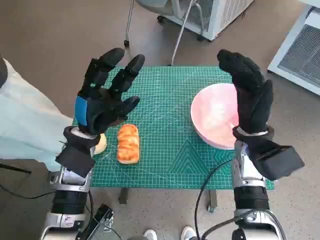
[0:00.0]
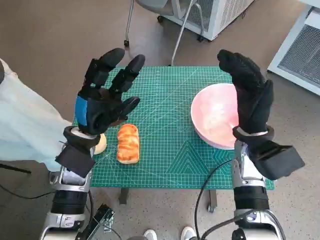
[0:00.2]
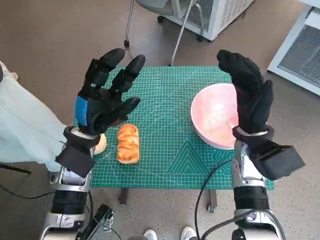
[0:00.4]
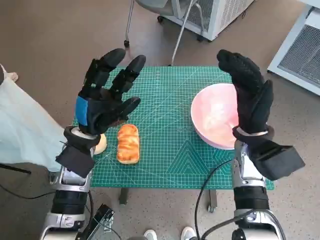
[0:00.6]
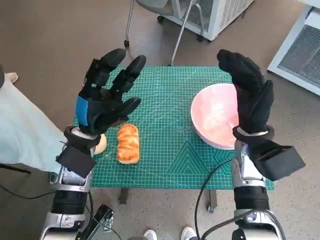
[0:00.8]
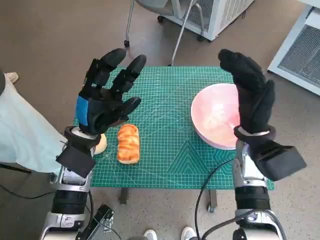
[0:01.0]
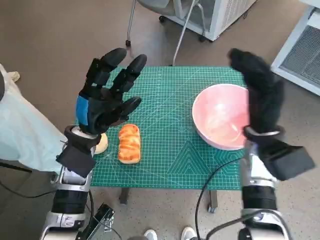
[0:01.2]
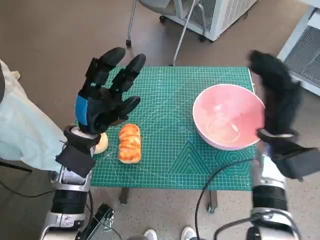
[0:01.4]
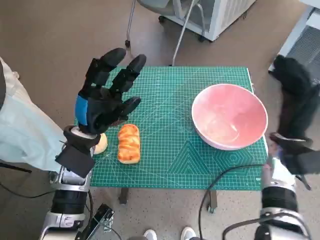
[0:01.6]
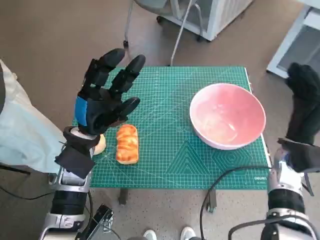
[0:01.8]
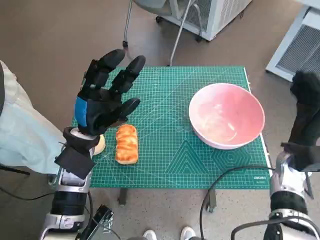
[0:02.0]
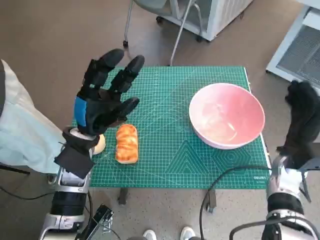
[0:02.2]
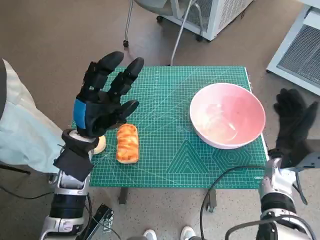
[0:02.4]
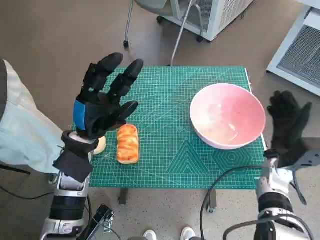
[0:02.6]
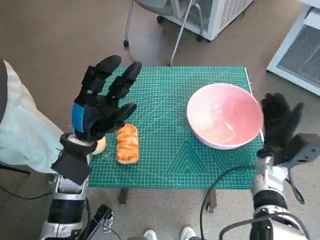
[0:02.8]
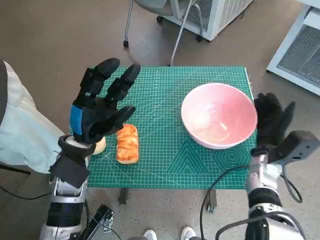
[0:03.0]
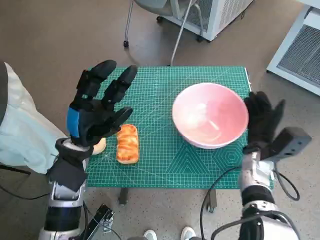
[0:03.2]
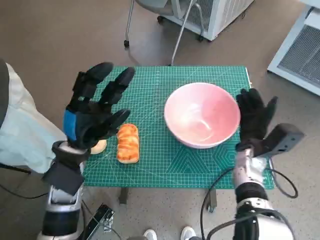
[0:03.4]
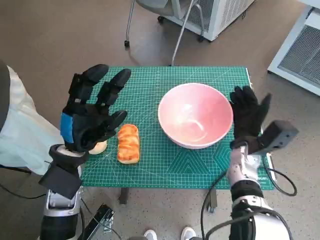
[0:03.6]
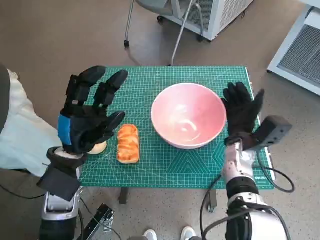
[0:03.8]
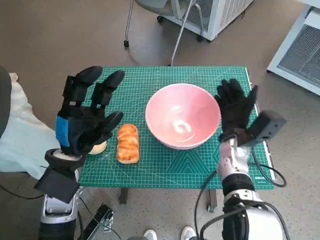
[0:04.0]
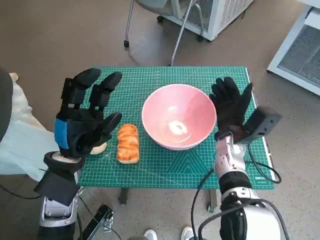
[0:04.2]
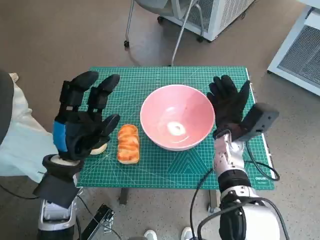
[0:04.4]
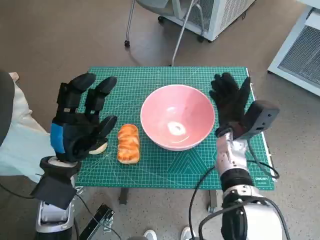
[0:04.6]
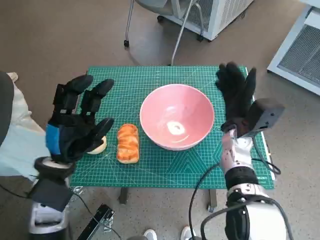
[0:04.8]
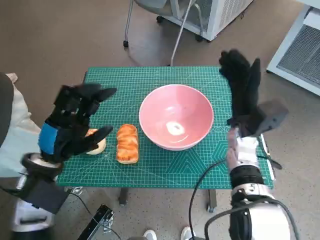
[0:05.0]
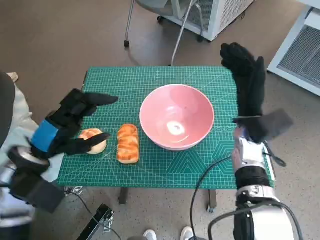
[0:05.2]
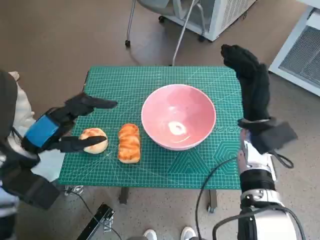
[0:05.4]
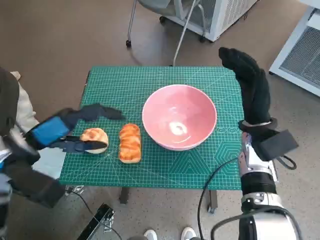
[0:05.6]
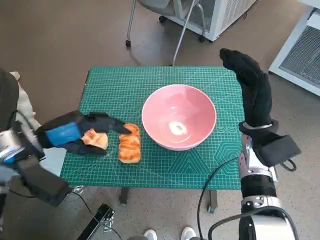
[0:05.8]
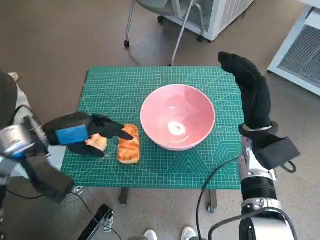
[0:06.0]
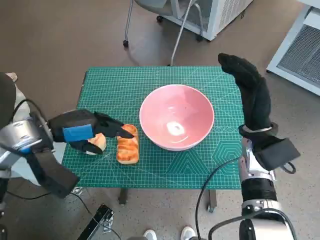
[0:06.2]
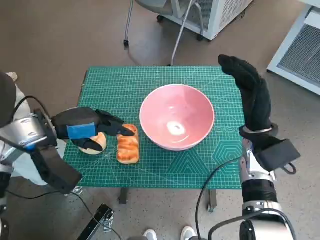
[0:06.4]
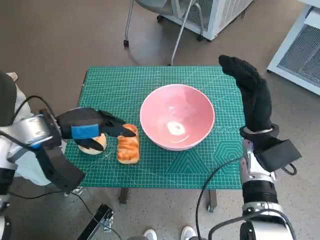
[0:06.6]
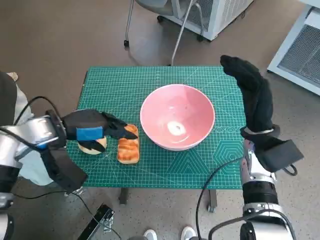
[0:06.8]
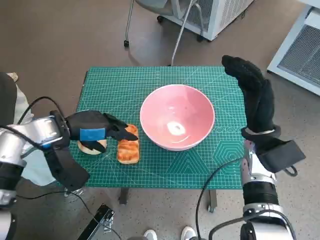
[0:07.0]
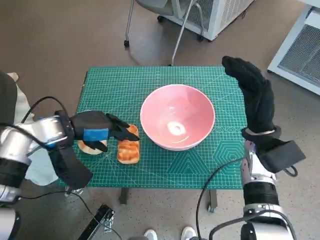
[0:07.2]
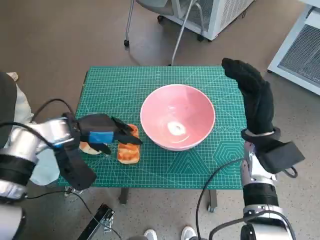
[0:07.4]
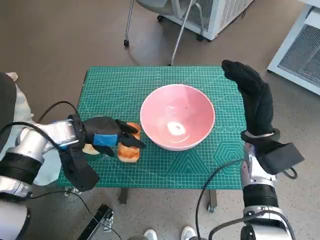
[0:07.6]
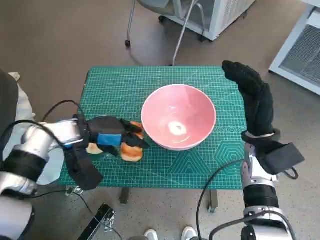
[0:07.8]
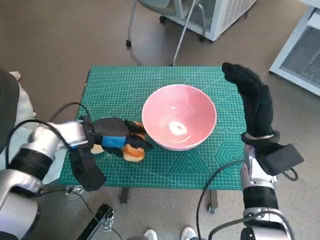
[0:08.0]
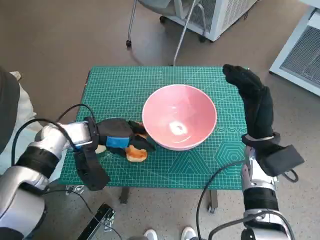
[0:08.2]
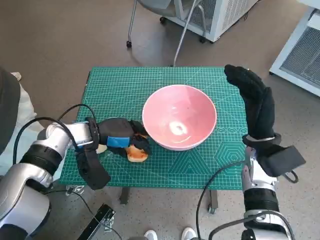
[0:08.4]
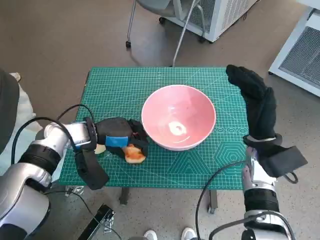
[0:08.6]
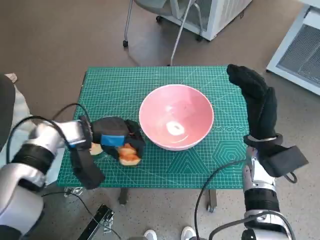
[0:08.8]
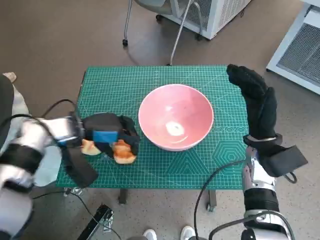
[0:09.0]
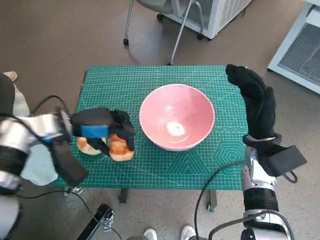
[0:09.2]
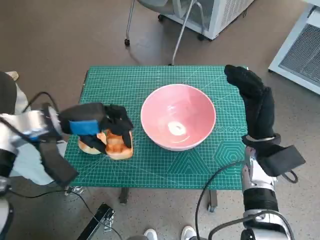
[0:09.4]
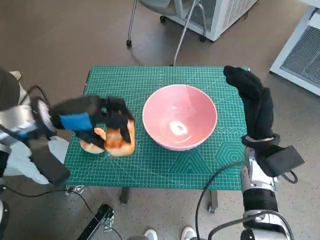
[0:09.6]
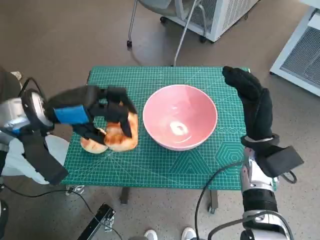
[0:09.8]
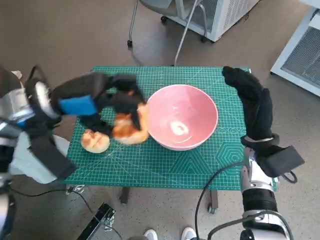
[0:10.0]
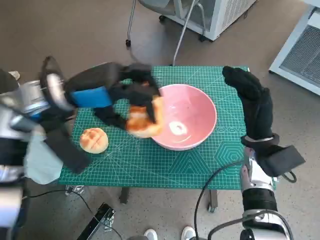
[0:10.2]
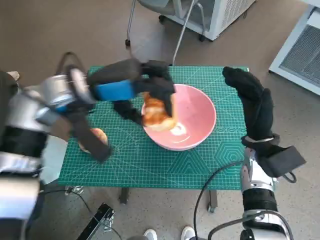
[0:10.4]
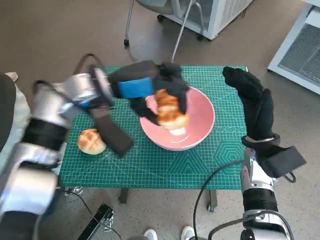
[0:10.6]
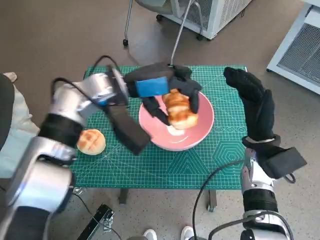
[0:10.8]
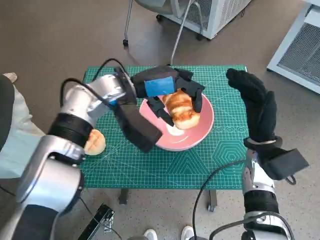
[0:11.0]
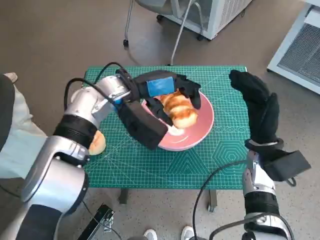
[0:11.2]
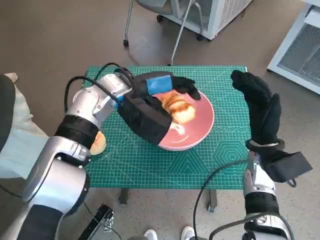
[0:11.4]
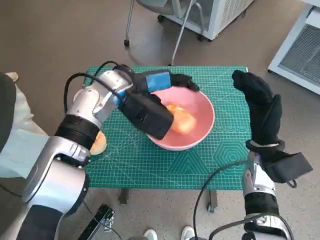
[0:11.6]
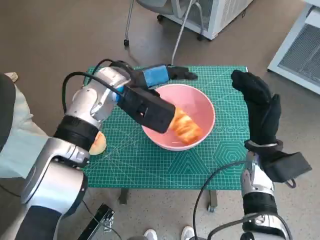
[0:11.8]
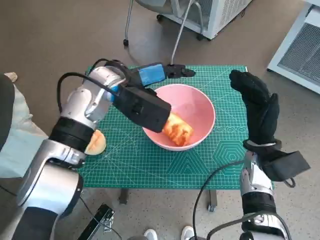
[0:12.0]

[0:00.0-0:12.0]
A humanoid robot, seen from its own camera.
Task of the whole recording: Push the bowl to the center of the table and put the bread into the bowl.
Step, 0.0 to 4.6 s: Move the pink bowl to the center of table with right hand.
Step, 5.0 to 7.8 s: Grasp the long bread with left hand.
Step, 8.0 to 11.6 s: Place the long bread in pink bowl with left hand.
1.6 to 3.0 s: The right hand is displaced downward by some 5 cm.
3.0 to 4.4 s: The right hand moves to the left, about 10 cm.
4.4 to 6.0 s: The right hand travels upward by some 5 cm. Meanwhile the left hand travels to the left and upward by some 10 cm.
6.0 to 7.6 s: The left hand shifts by roughly 10 cm.
7.6 to 9.0 s: The hands make only small movements.
9.0 to 10.4 s: The left hand goes about 10 cm upward.
10.4 to 12.0 s: The left hand moves to the right, roughly 5 cm.

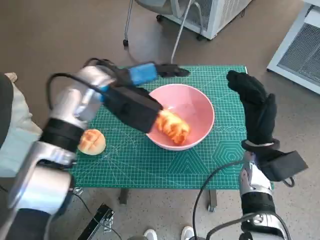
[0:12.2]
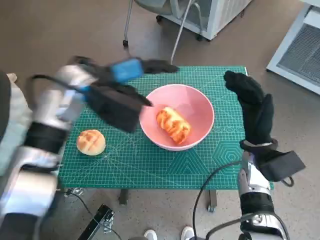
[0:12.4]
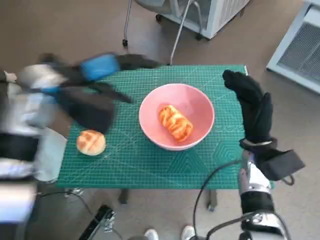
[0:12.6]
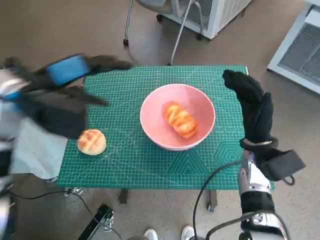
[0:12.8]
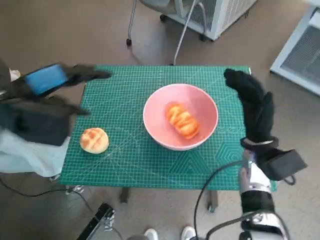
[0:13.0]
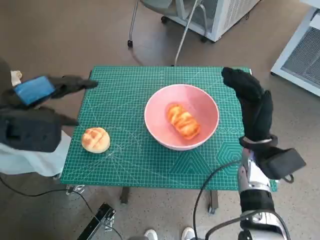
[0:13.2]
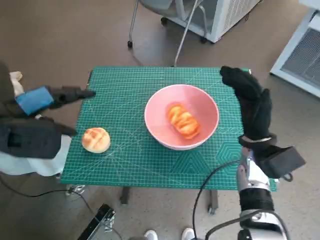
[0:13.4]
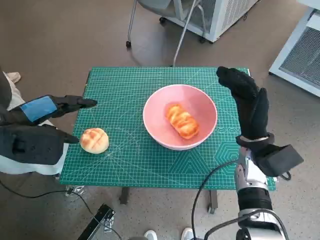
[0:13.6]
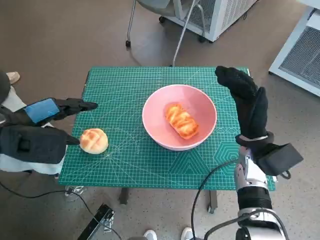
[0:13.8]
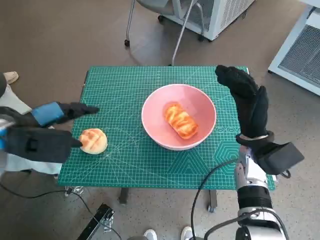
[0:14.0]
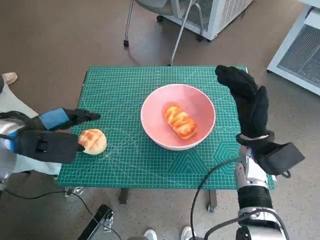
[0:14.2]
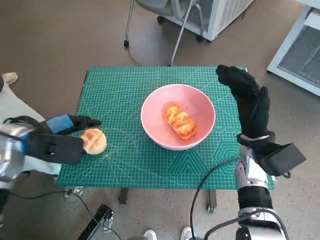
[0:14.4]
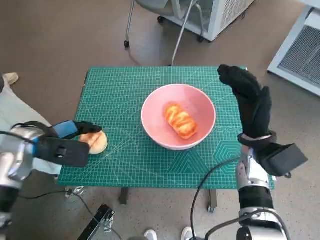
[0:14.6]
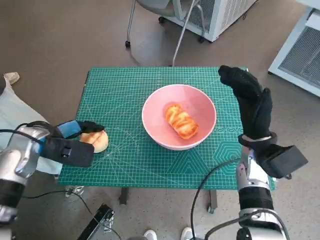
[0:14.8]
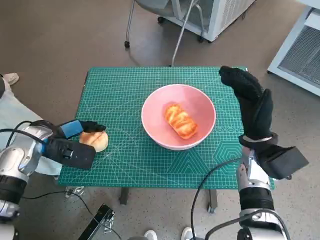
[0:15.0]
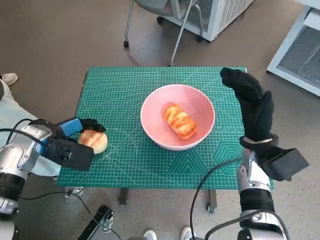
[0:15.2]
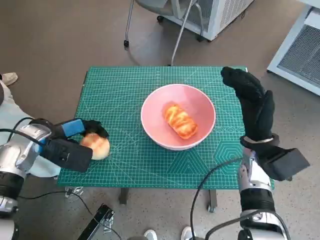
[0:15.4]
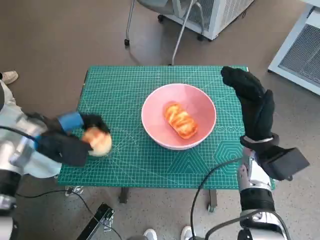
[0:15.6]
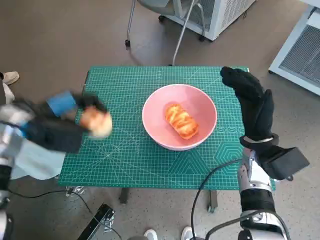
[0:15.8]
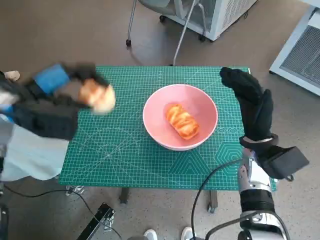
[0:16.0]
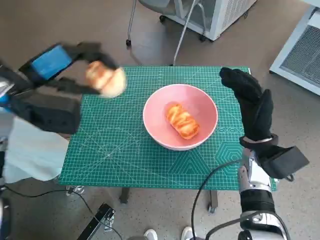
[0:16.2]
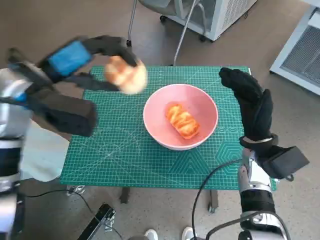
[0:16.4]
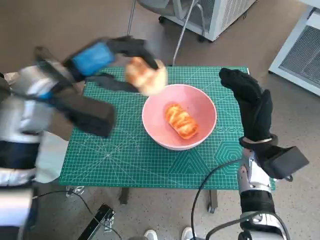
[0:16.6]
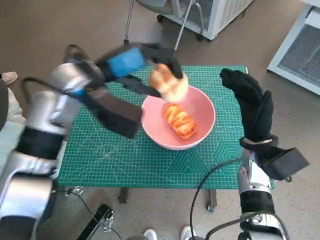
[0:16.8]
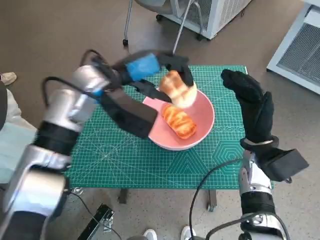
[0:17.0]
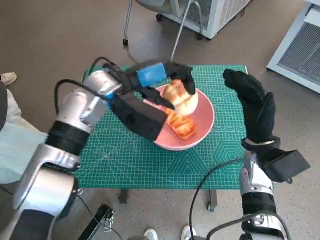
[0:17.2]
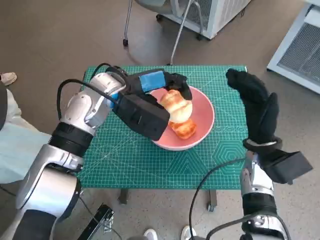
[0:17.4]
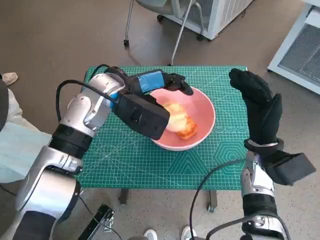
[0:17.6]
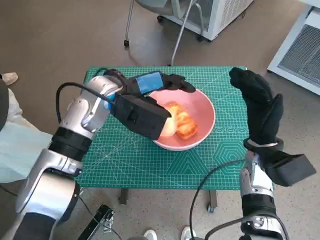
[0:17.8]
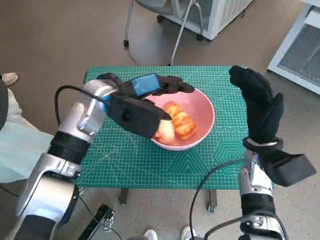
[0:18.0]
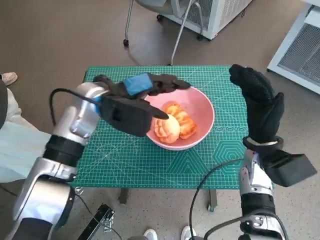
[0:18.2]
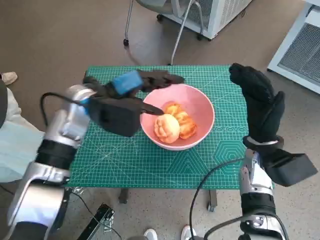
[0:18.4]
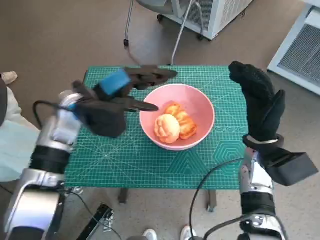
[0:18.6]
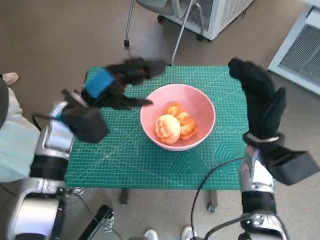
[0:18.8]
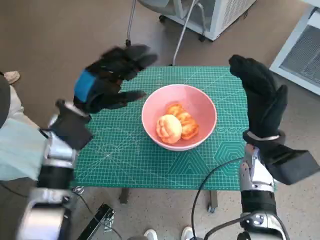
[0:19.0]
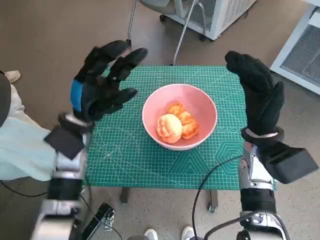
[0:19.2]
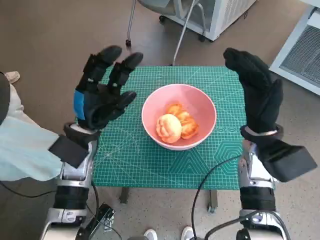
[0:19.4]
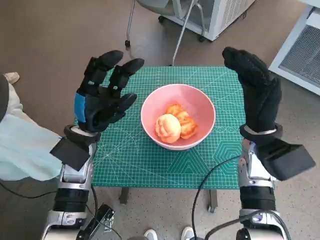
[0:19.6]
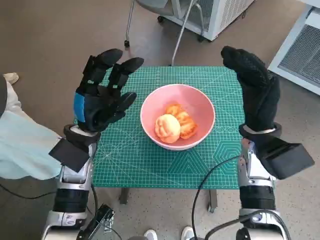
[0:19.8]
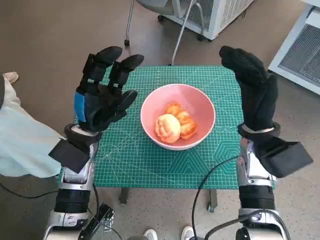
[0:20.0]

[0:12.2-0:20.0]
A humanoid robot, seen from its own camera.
Task of the whole recording: Push the bowl to the center of the table and put the bread into the bowl.
Step, 12.2 to 15.0 s: Grasp the round bread with left hand.
Step, 15.2 to 18.0 s: Place the round bread in pink bowl with left hand.
12.2 to 13.8 s: The left hand is displaced to the left and backward by roughly 20 cm.
13.8 to 15.4 s: The left hand is displaced downward by roughly 10 cm.
15.4 to 16.8 s: The left hand is displaced upward and to the right by about 15 cm.
16.8 to 18.4 s: The left hand travels downward by some 5 cm.
18.4 to 20.0 s: The left hand travels downward and backward by some 10 cm.

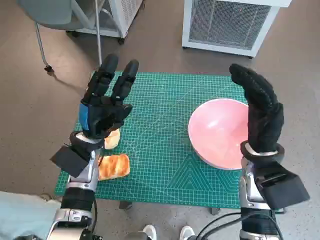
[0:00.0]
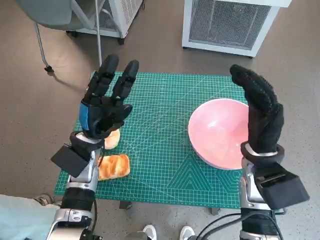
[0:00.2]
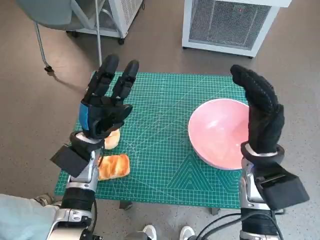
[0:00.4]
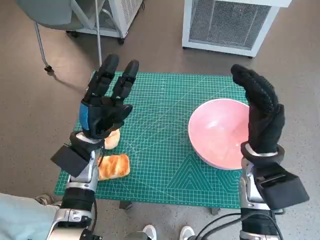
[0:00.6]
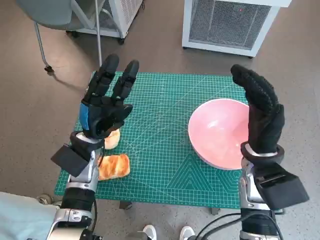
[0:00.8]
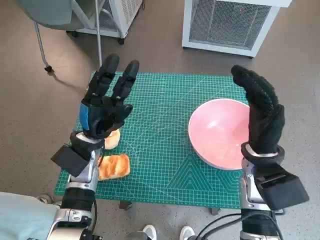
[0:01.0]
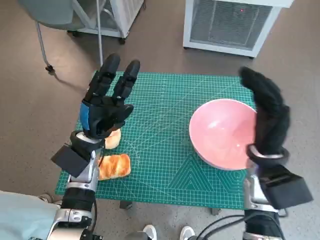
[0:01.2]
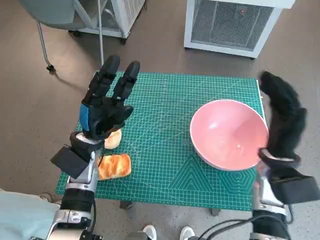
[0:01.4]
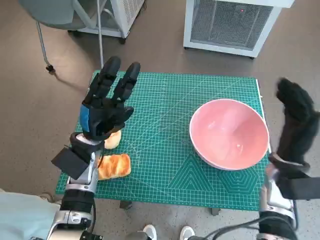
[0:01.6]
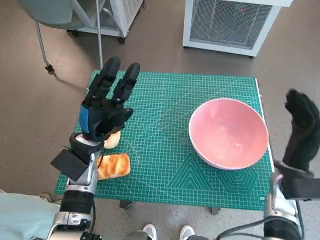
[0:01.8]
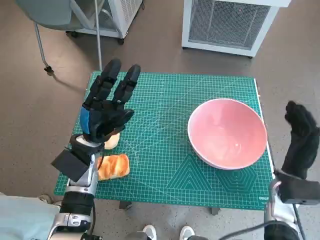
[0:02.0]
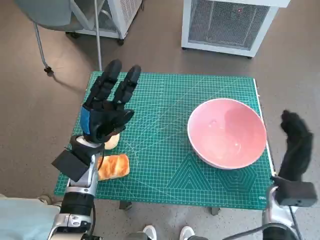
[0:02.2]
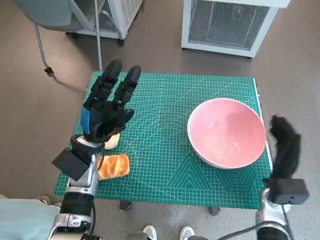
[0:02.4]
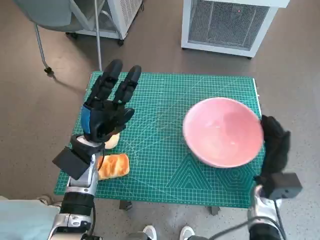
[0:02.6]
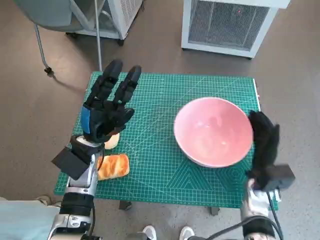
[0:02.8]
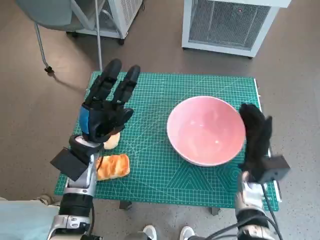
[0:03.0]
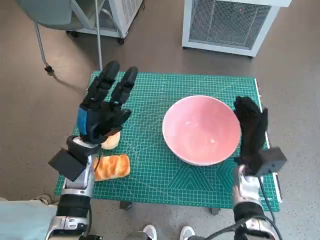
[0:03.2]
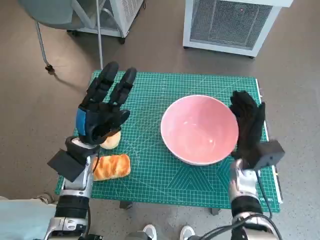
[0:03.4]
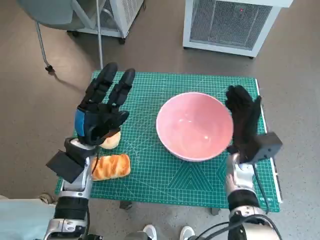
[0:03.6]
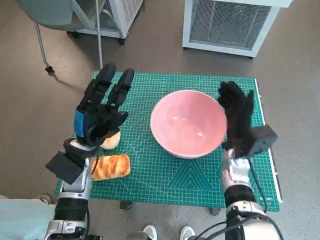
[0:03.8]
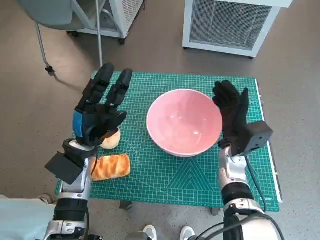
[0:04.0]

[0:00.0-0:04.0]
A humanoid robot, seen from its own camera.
Task of the whole recording: Push the bowl to the center of the table and put the bread into the bowl.
1.4 to 2.6 s: The right hand goes approximately 10 cm downward.
2.6 to 4.0 s: The right hand shifts about 10 cm to the left and forward.
